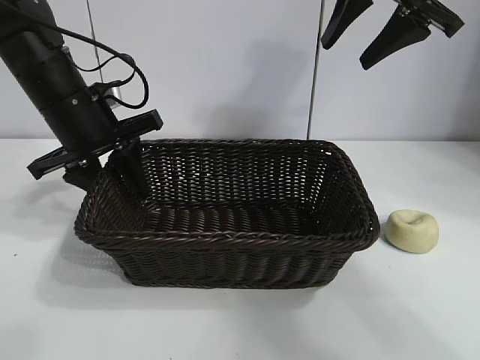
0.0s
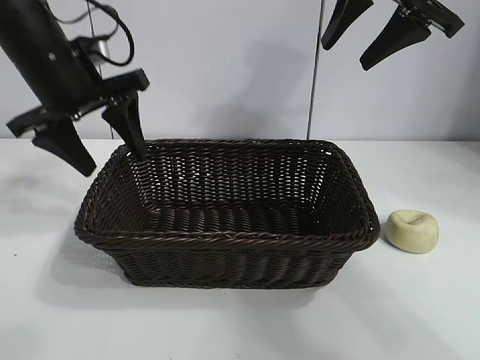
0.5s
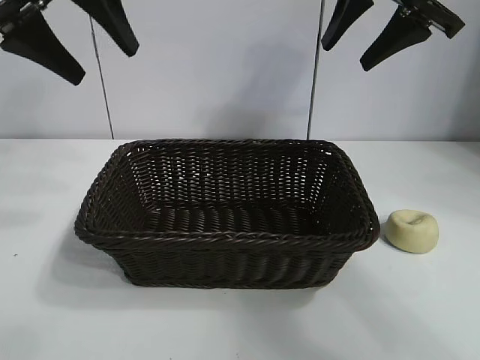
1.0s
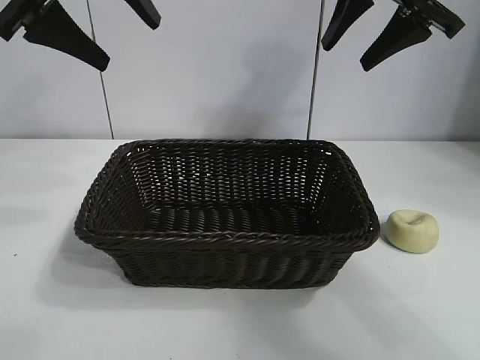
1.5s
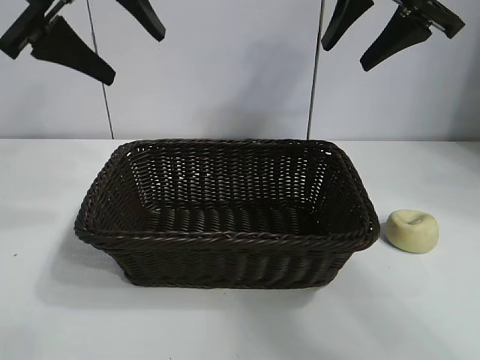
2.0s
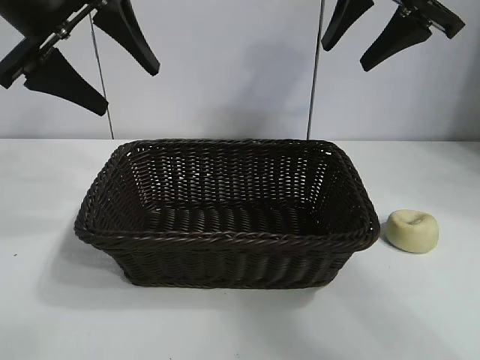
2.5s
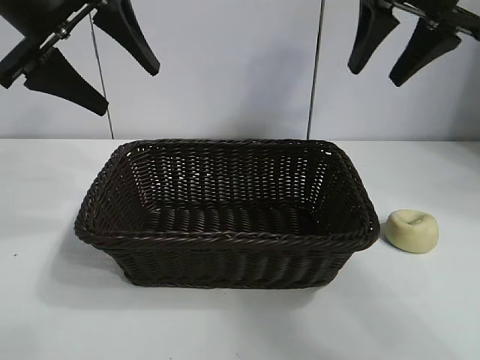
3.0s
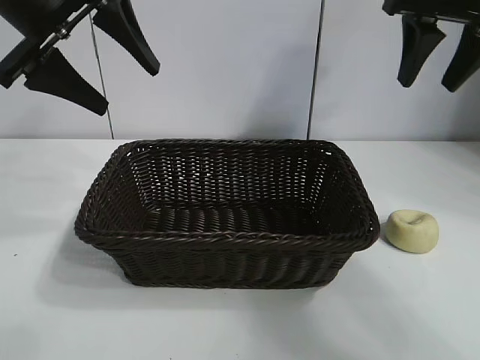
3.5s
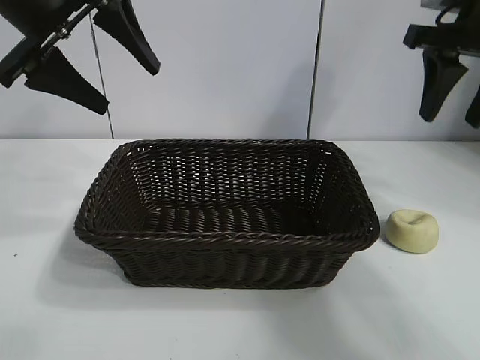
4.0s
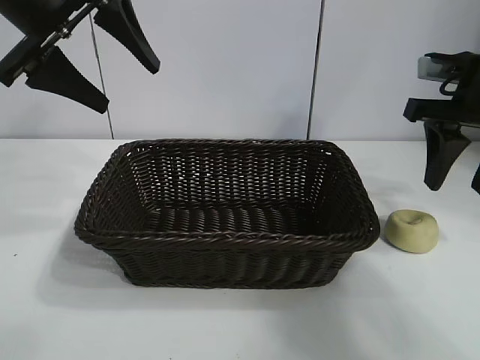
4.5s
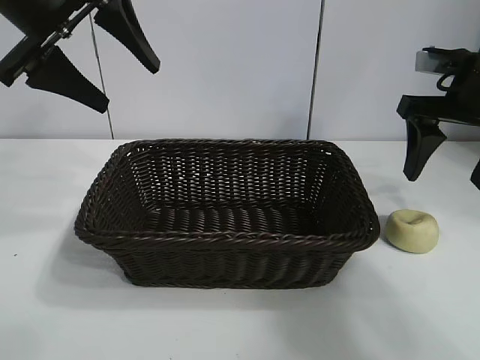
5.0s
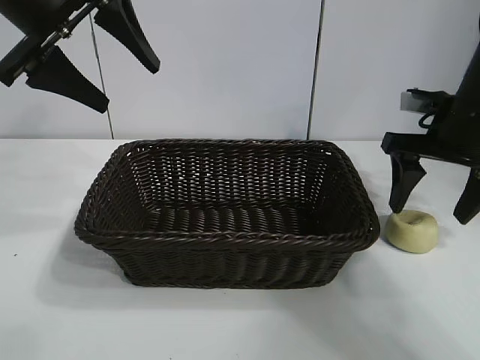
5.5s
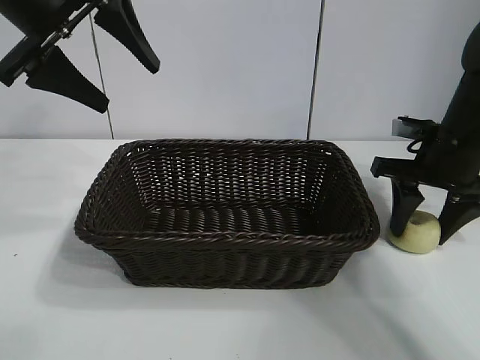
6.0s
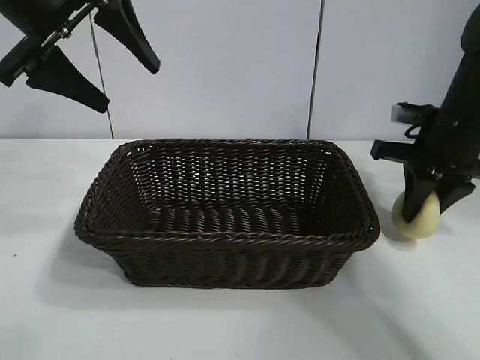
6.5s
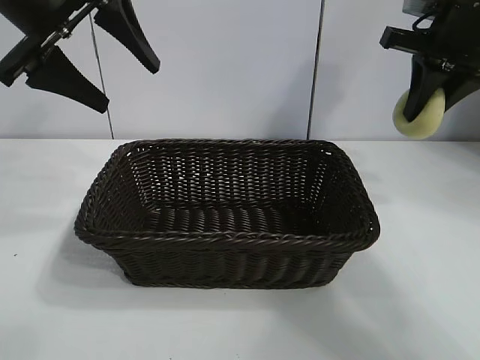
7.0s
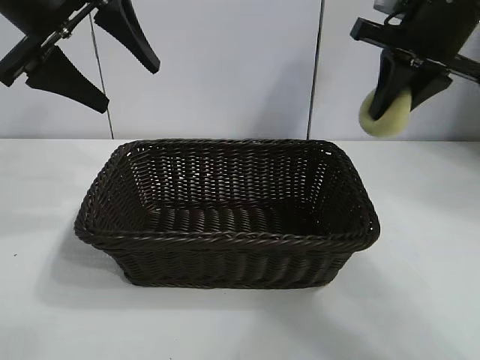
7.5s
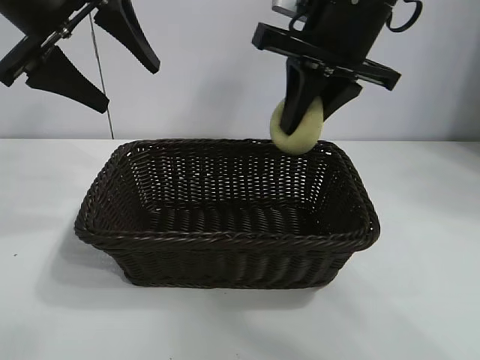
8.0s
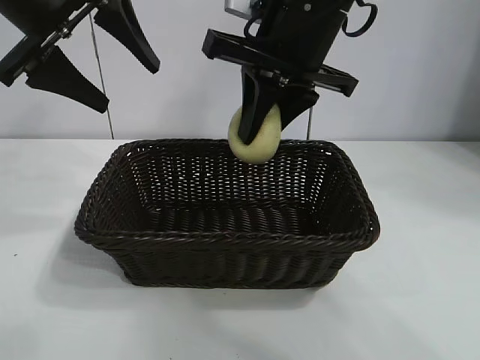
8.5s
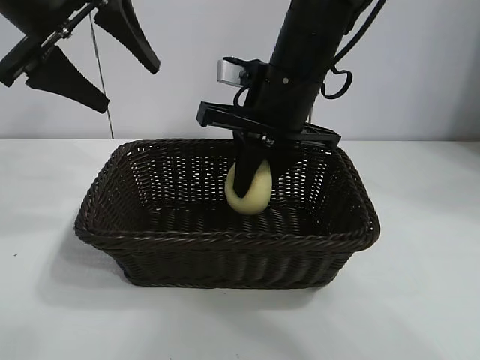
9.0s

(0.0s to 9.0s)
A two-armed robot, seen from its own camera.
Task of the whole recording: pick up the egg yolk pastry and put it into the basket.
Step, 0.5s - 6.0s: Grasp egg yolk pastry with right gripper.
